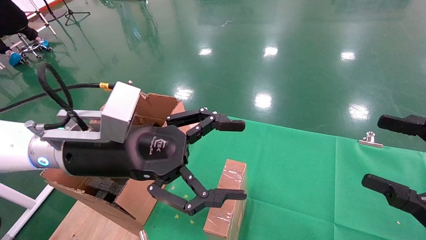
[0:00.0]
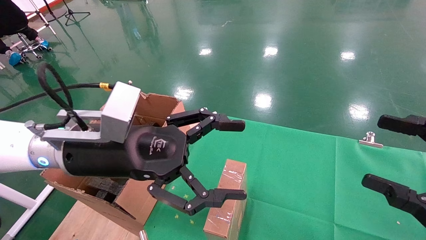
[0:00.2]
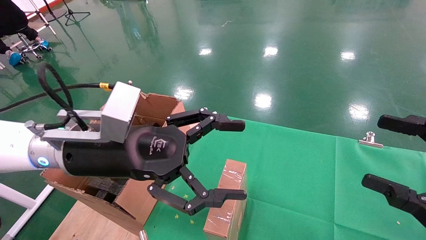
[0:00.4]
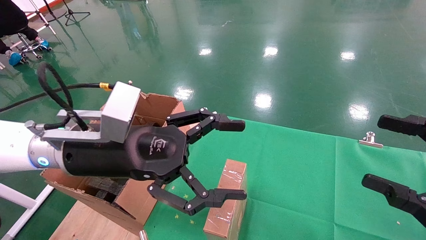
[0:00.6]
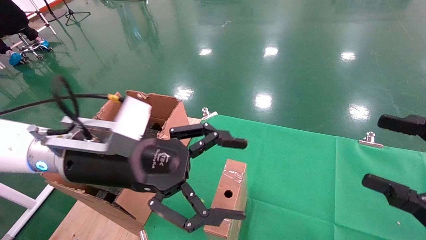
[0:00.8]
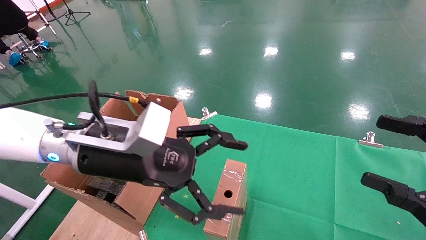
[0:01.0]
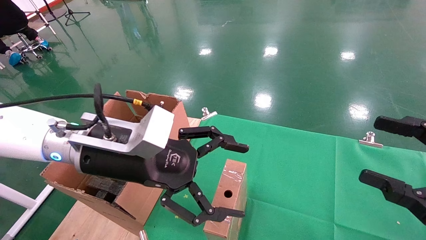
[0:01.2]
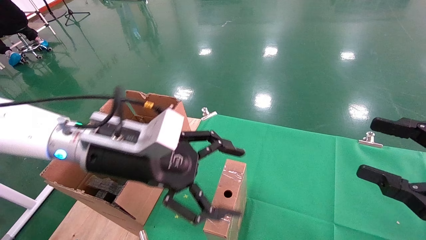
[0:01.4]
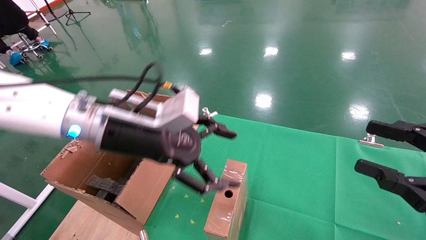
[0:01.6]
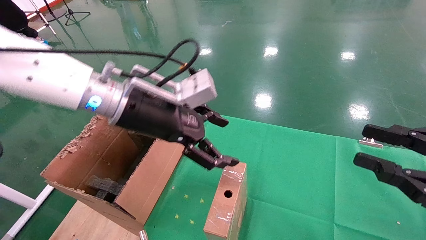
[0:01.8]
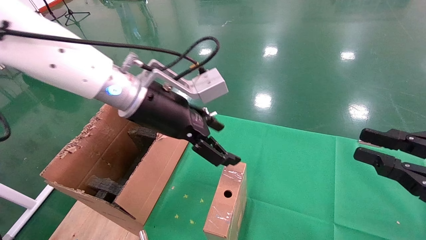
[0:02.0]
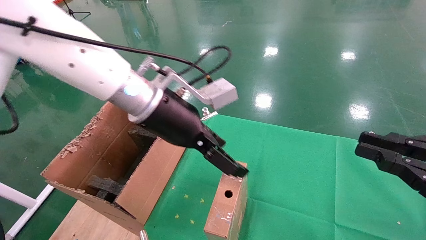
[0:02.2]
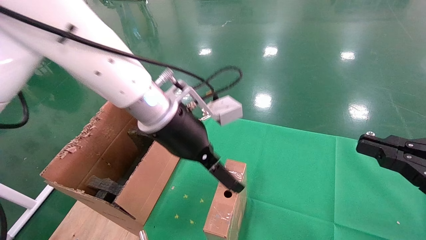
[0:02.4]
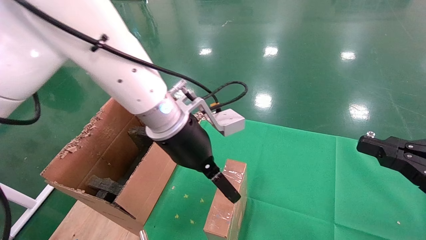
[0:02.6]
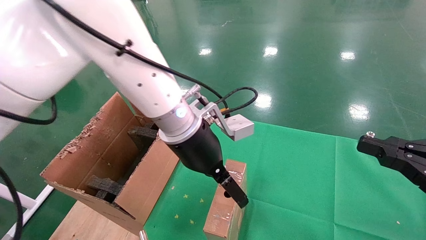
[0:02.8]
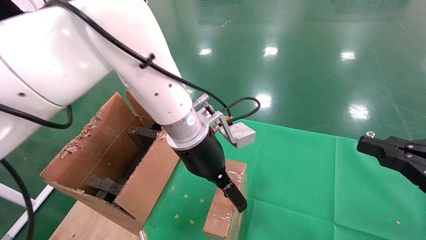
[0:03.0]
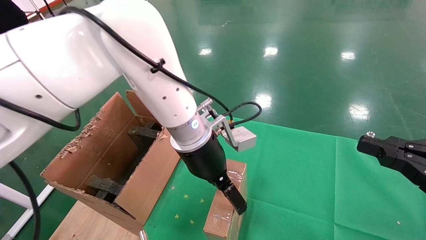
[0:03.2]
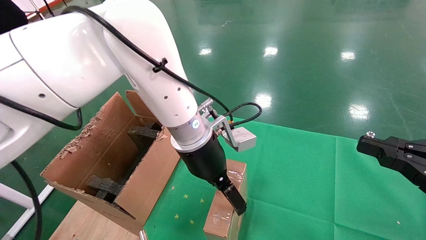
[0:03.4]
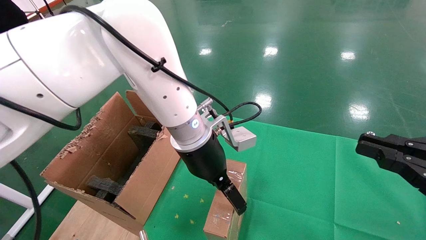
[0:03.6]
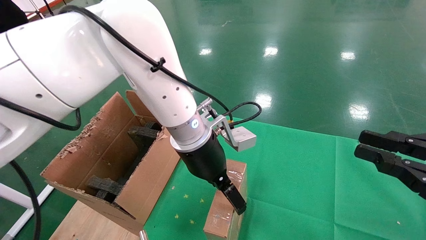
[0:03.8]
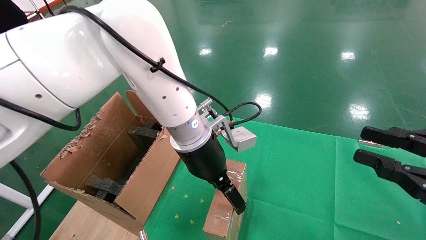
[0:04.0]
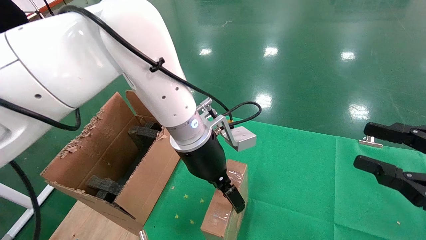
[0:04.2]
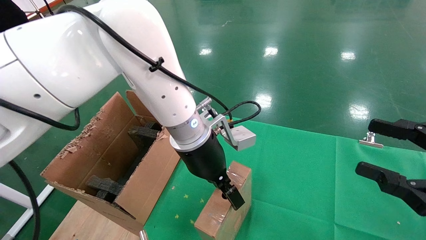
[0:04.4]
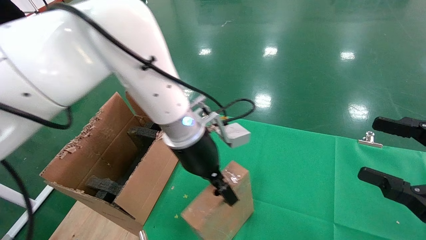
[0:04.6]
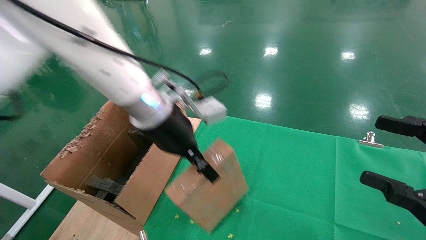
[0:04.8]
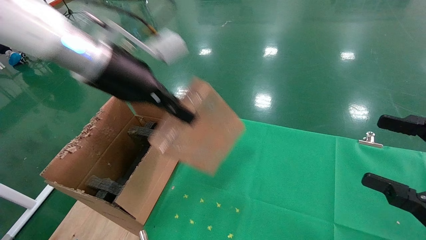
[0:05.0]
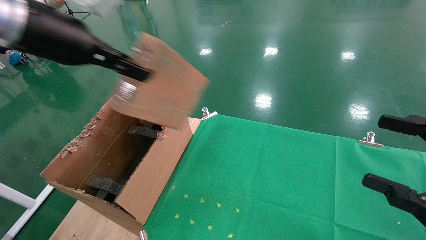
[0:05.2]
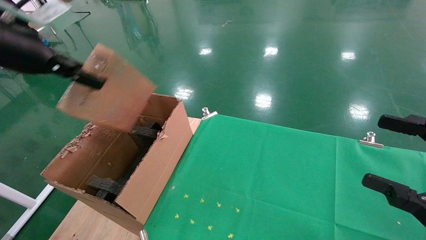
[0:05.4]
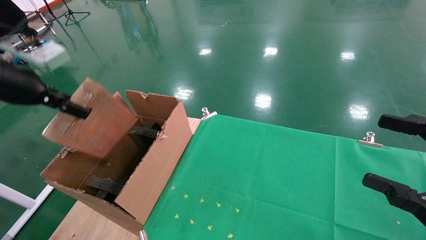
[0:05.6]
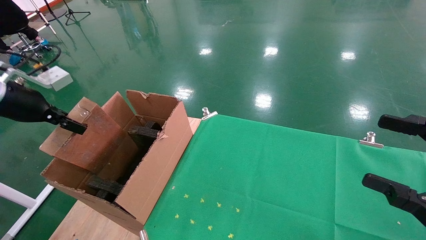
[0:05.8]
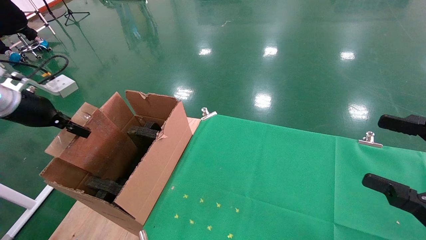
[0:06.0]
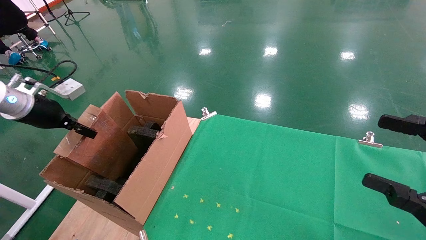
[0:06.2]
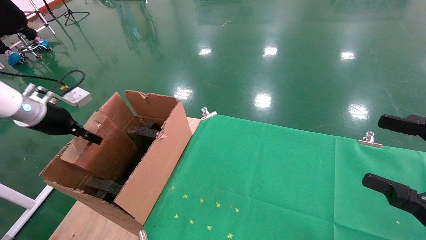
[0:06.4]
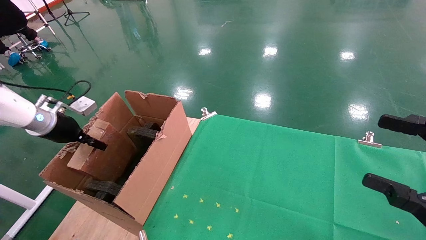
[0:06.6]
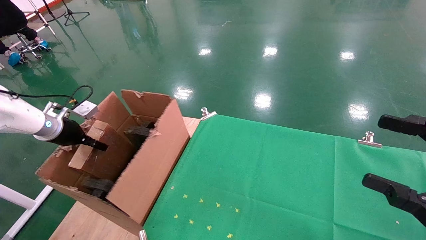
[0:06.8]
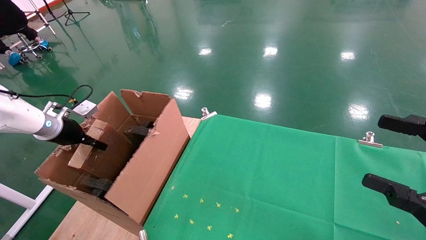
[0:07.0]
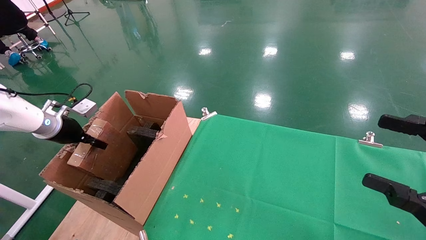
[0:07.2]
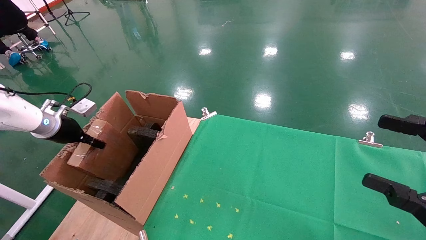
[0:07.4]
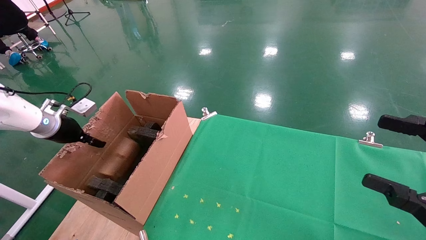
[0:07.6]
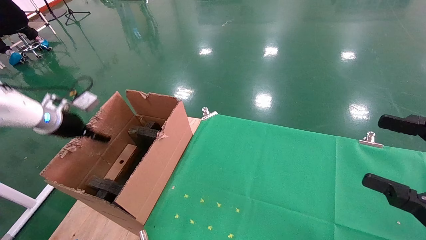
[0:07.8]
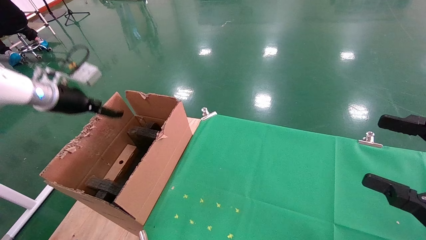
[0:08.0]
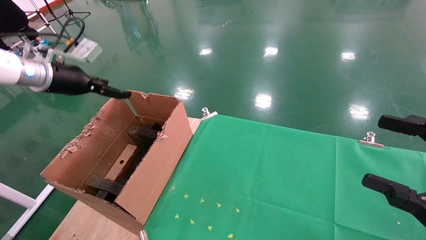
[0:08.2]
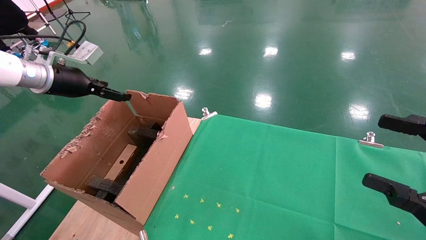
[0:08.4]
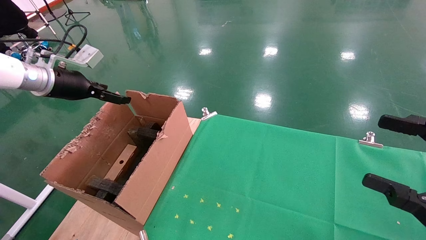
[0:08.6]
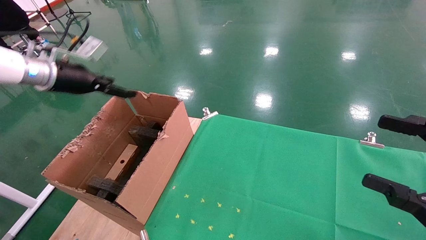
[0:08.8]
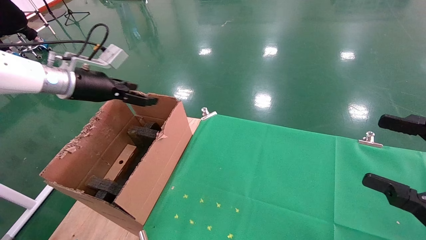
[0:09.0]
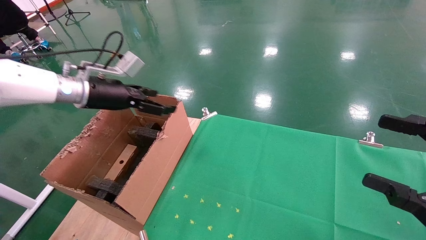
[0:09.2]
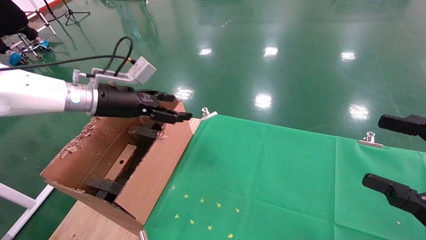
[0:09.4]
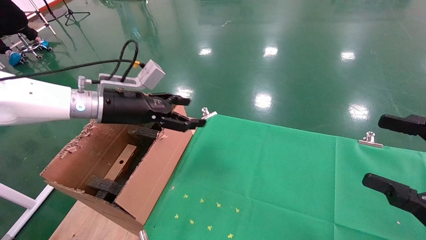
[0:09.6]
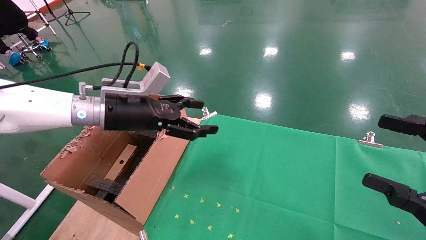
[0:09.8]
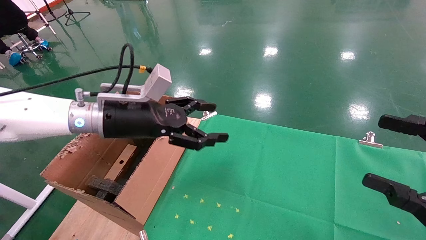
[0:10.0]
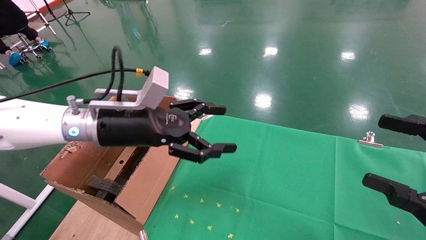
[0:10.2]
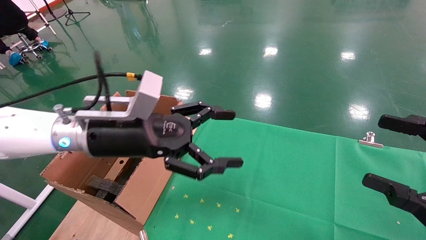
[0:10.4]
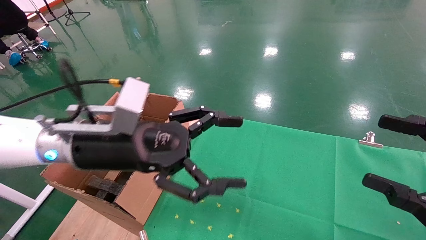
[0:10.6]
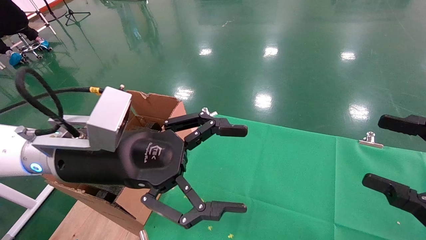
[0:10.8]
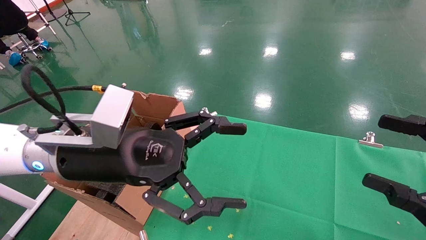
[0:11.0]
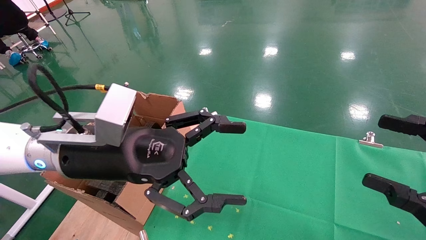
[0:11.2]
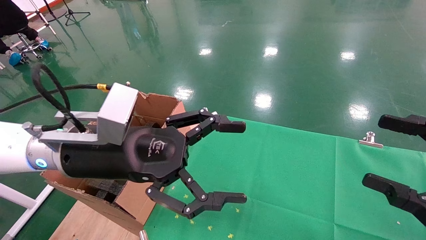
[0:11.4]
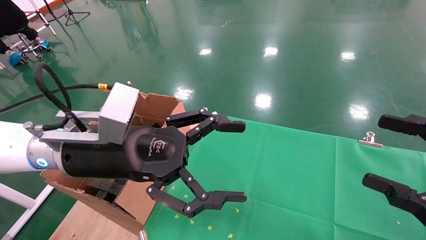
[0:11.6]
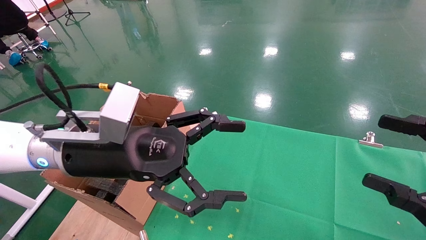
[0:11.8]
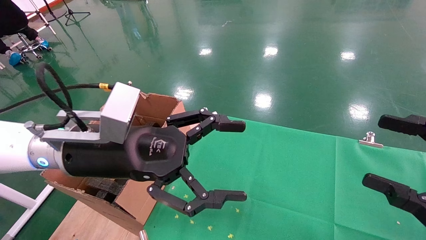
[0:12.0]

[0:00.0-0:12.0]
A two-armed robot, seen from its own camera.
Task of the whole recording: using a robotic arm to pick up a cardboard box and palace it the carton.
Step, 0:01.0 to 0:04.6: Pick up the mouse and the power cord paper box.
Step, 0:04.8 to 0:07.6: Place the mouse and the power cord paper box into the container.
0:00.0 to 0:01.6: The left gripper moves about 5 cm.
0:01.6 to 0:03.0: The left gripper shifts about 15 cm to the right and forward. Meanwhile the right gripper closes its fingers.
0:03.0 to 0:04.4: The left gripper closes its fingers. Meanwhile the right gripper opens.
0:04.4 to 0:06.0: The left gripper heads to the left, covering roughly 40 cm, and closes. The right gripper opens its fingers.
0:06.0 to 0:07.6: The left gripper shifts about 10 cm downward and forward.
0:07.6 to 0:09.0: The left gripper shifts some 15 cm to the right and upward, and opens its fingers.
0:09.0 to 0:10.4: The left gripper shifts roughly 20 cm to the right and backward.
0:10.4 to 0:12.0: There are only small adjustments of the grippers.

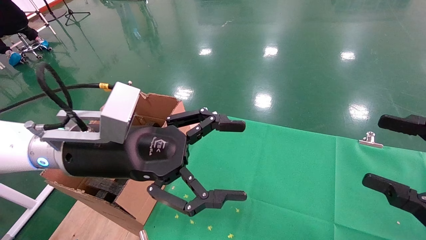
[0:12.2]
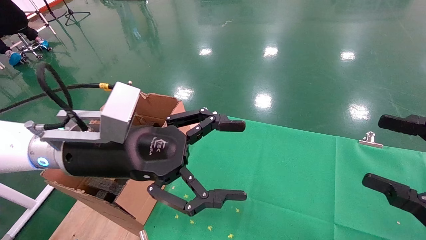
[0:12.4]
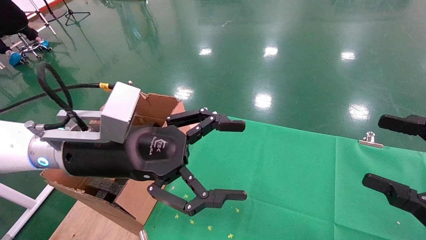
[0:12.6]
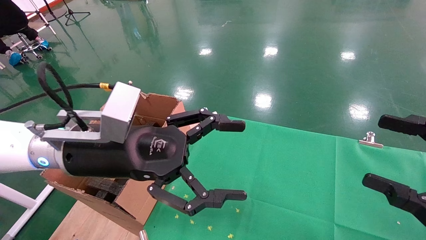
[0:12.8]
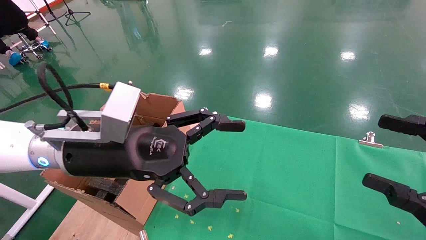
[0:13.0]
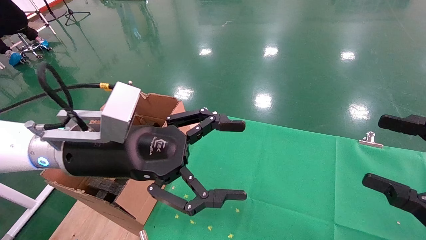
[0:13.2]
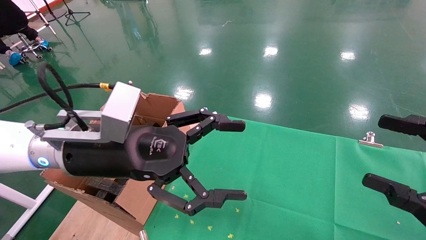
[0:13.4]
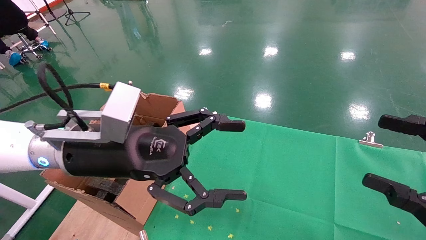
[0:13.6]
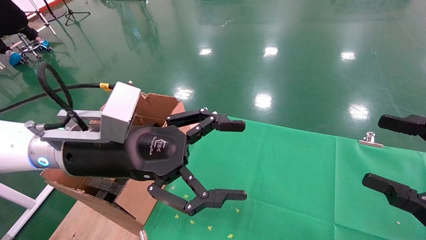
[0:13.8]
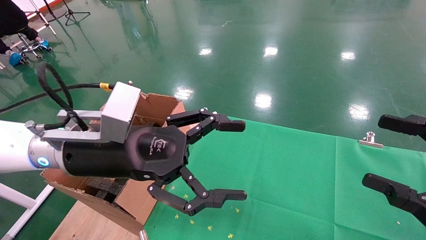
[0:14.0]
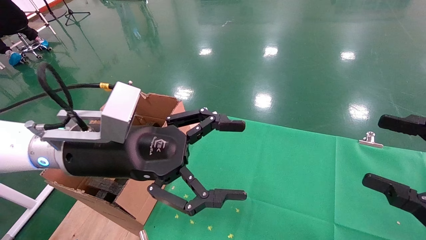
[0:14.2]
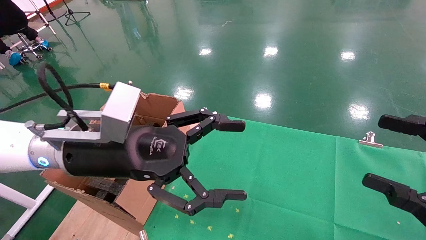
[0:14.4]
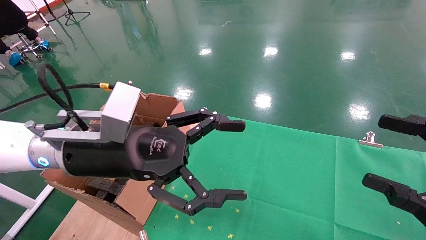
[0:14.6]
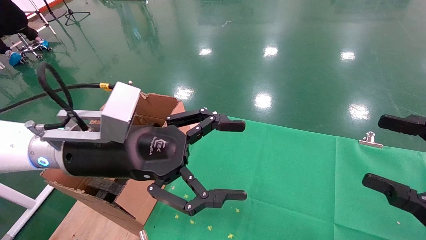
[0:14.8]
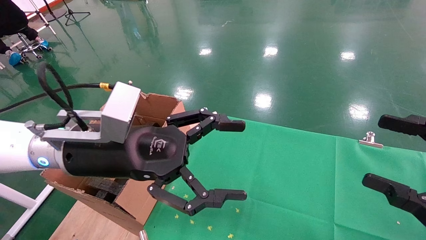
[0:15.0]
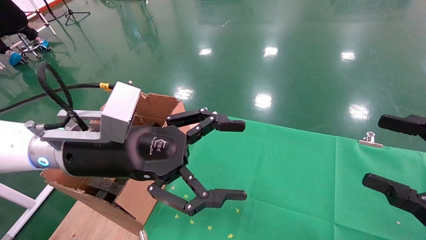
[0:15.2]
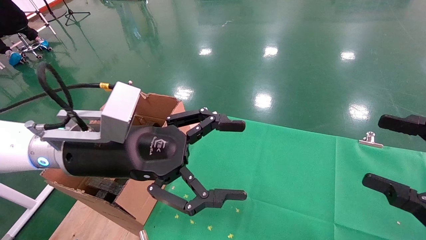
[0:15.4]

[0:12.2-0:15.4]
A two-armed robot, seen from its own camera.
Task of the whole recording: using a robotic arm to pick up a cardboard box and palace it the carton.
0:12.2 to 0:15.4: The two grippers keep their place.
